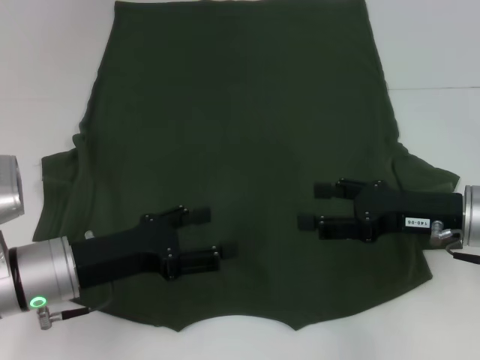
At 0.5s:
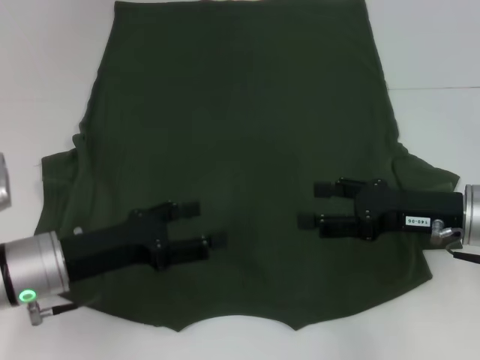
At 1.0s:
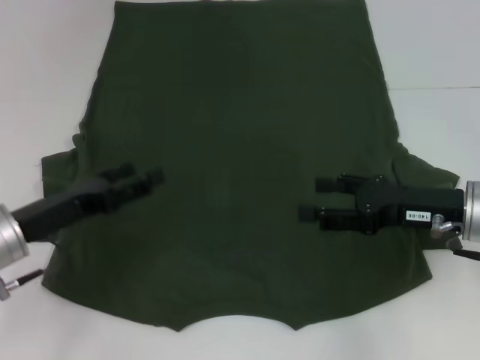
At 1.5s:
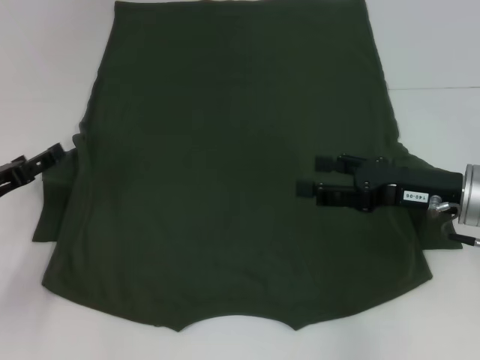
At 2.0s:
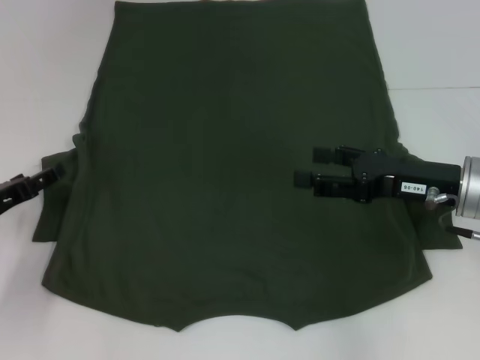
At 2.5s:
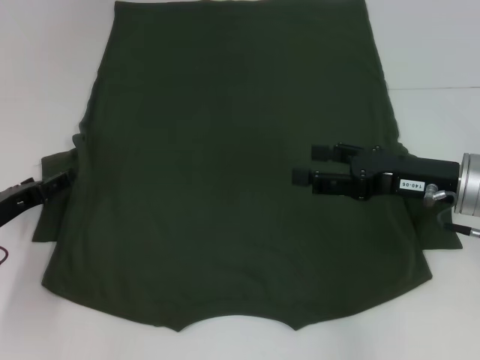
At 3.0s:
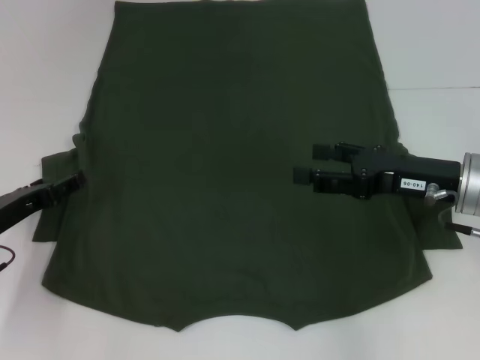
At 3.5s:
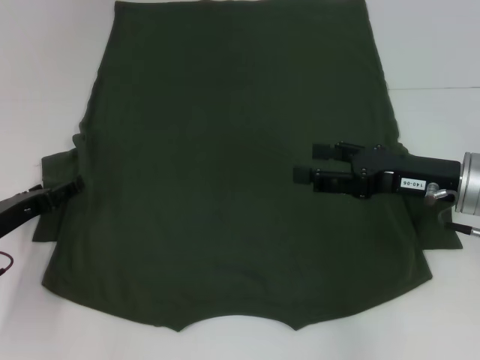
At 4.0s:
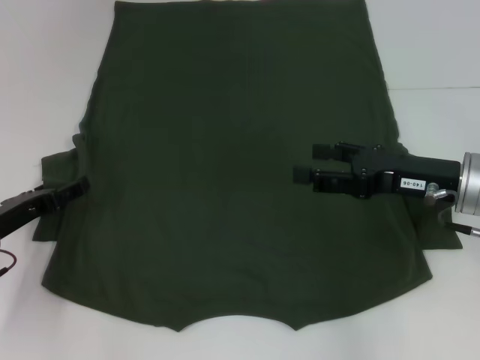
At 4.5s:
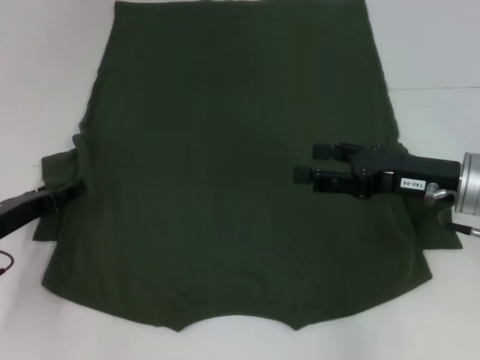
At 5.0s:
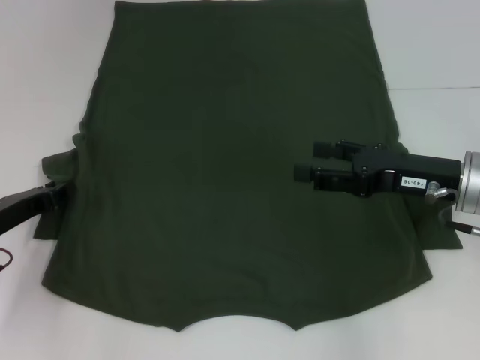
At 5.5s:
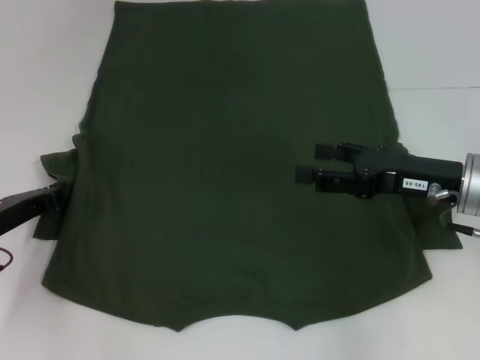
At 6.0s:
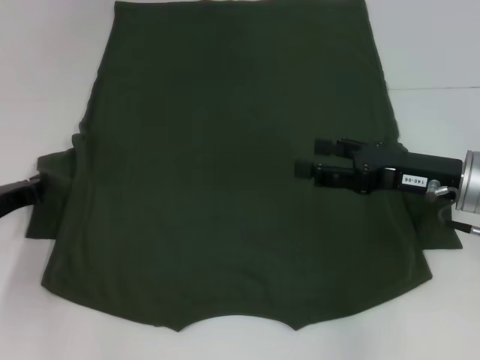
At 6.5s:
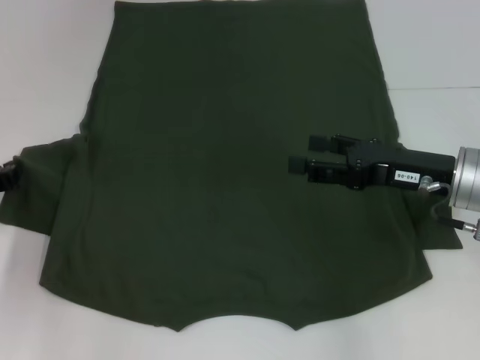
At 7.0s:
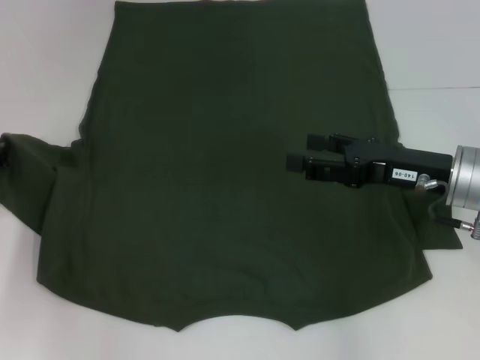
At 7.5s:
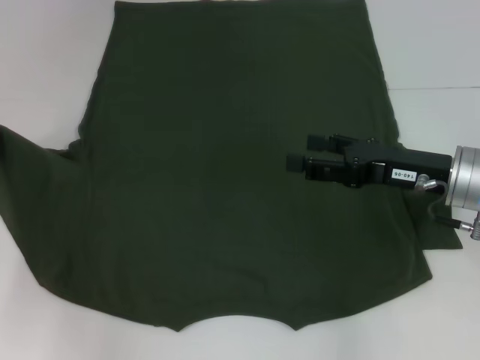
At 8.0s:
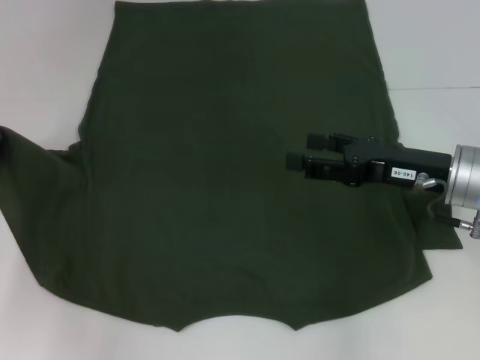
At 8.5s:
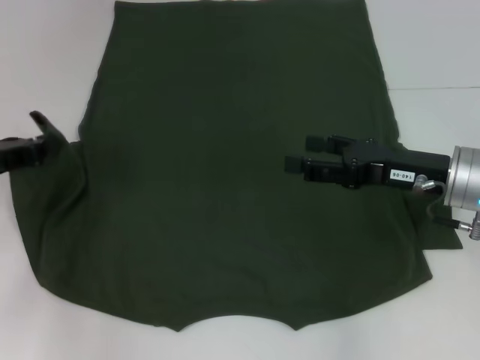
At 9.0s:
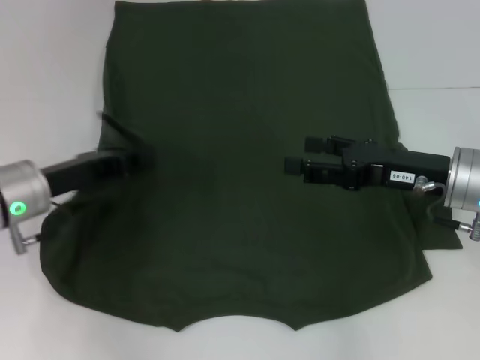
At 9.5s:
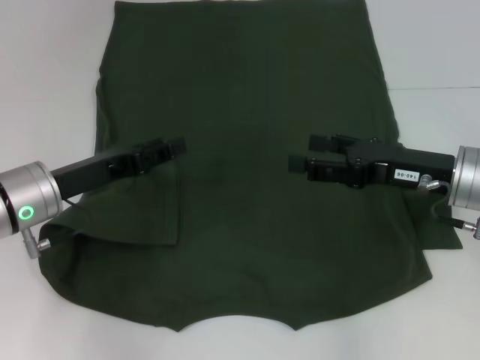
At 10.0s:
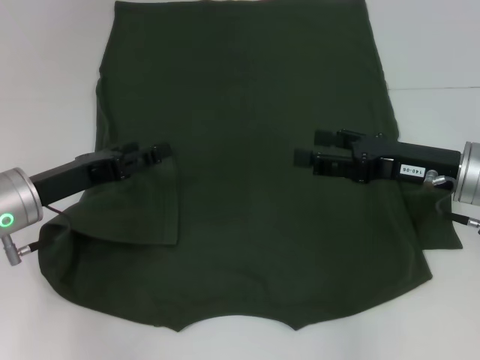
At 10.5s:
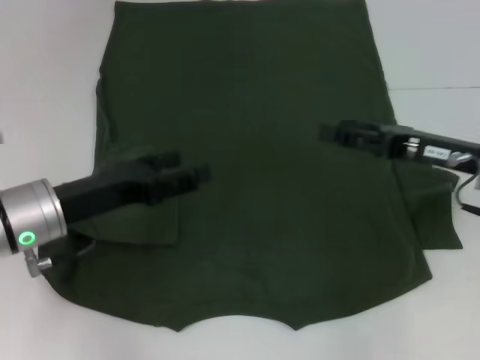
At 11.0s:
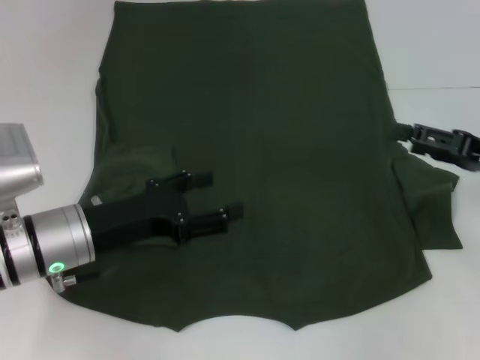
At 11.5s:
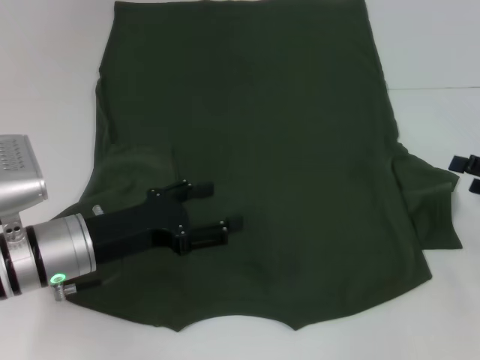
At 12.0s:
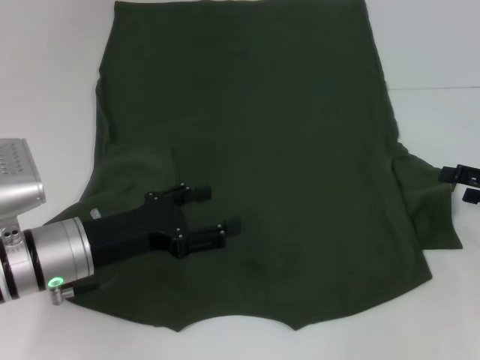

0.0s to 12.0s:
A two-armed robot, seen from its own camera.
Step, 0.0s to 10.0s: Fold the bottom left sleeve with your left hand.
0.0s to 2.0s: The left gripper moves to the left, about 10 cm.
2.0s to 4.0s: There are only small adjustments of the grippers.
4.0s to 6.0s: The left gripper closes.
6.0s to 8.0s: The left gripper shifts by some 5 cm.
8.0s to 10.0s: The left gripper is displaced to the right by approximately 10 cm, and opens its fingers.
10.0s to 12.0s: The left gripper changes place by about 5 cm. The right gripper is displaced to the right by about 15 cm.

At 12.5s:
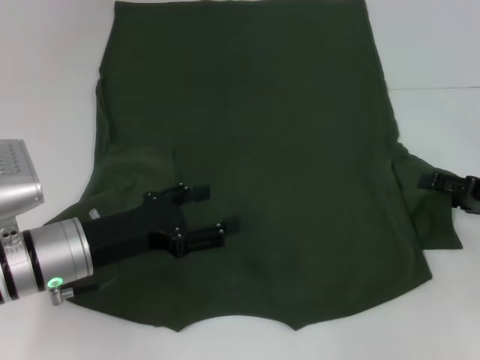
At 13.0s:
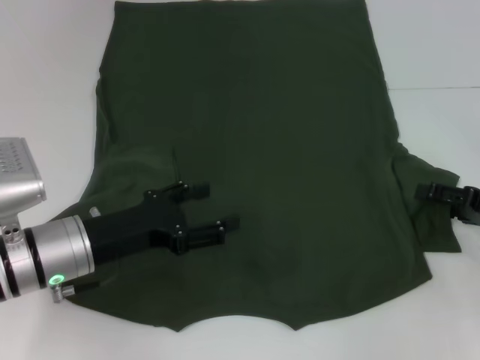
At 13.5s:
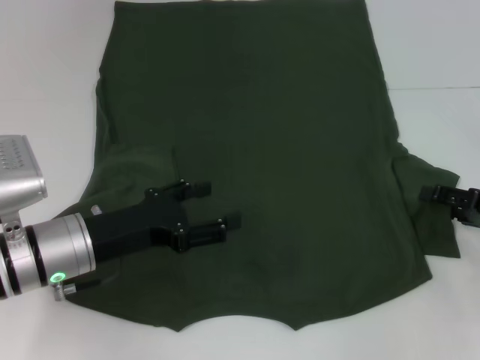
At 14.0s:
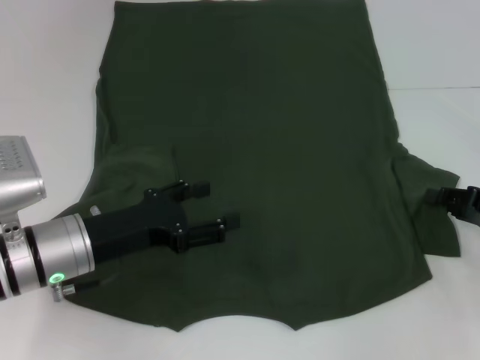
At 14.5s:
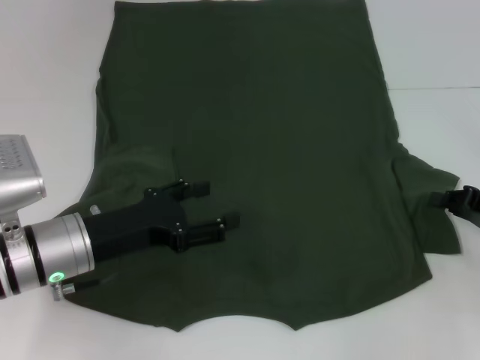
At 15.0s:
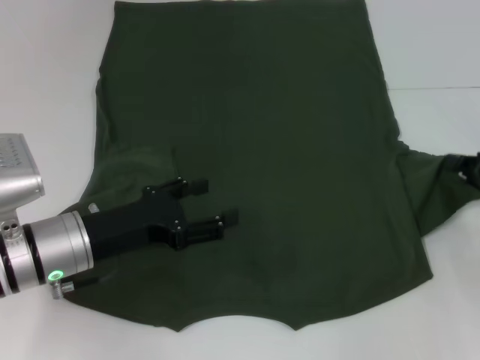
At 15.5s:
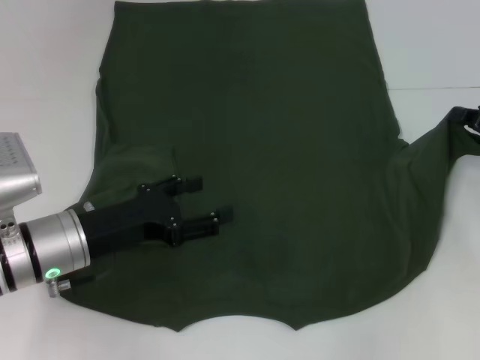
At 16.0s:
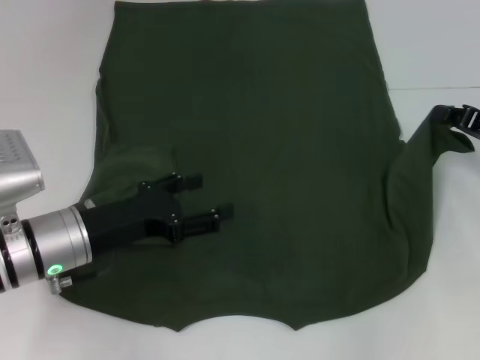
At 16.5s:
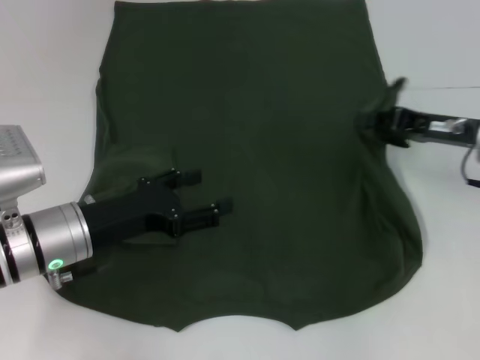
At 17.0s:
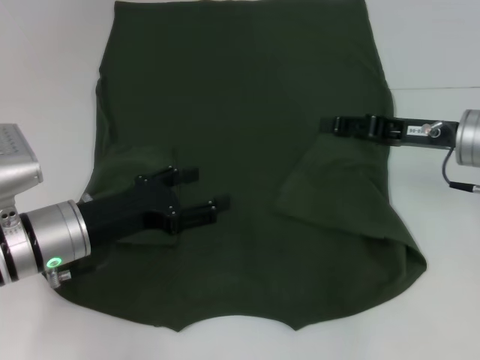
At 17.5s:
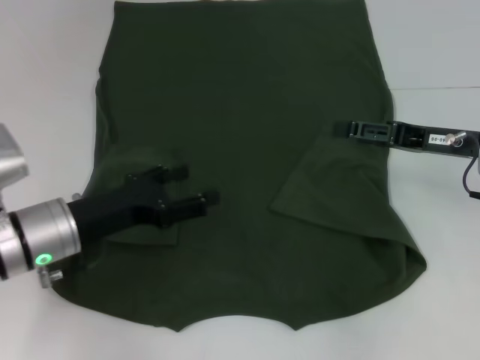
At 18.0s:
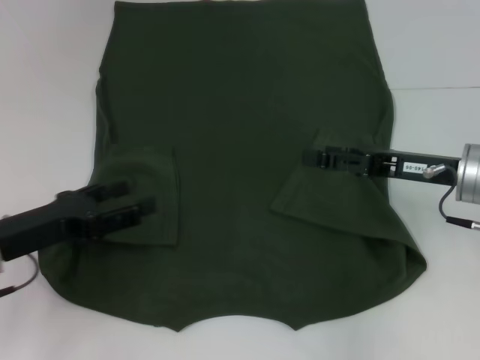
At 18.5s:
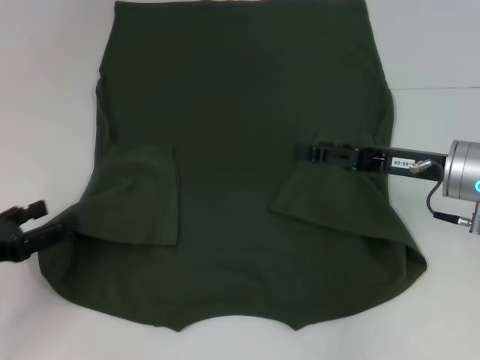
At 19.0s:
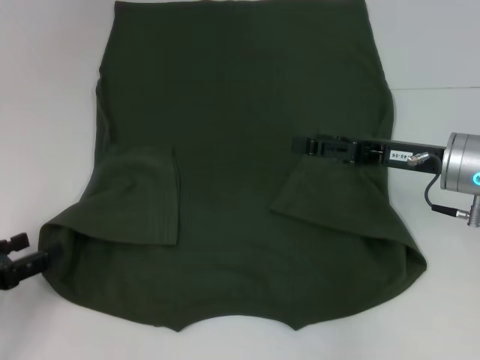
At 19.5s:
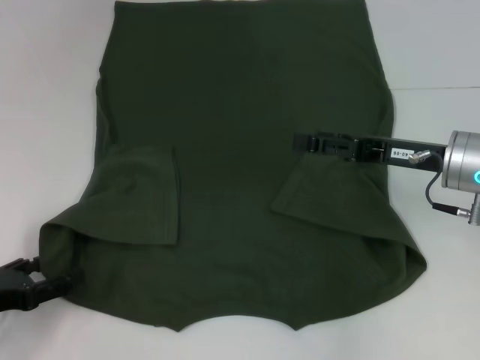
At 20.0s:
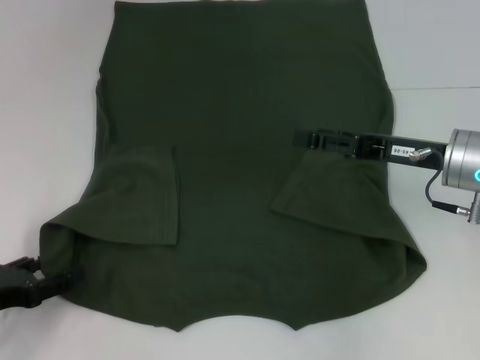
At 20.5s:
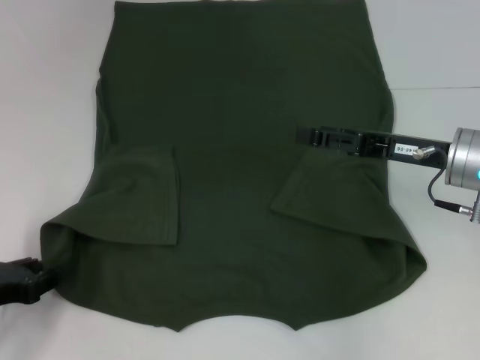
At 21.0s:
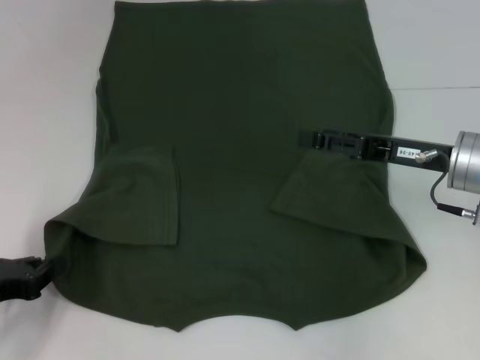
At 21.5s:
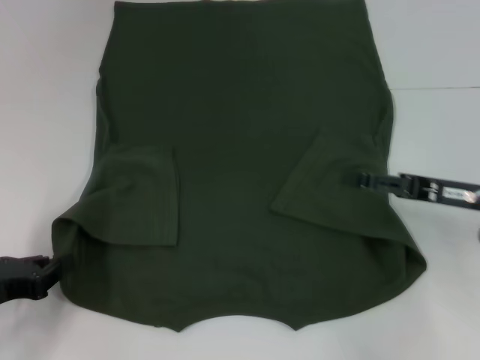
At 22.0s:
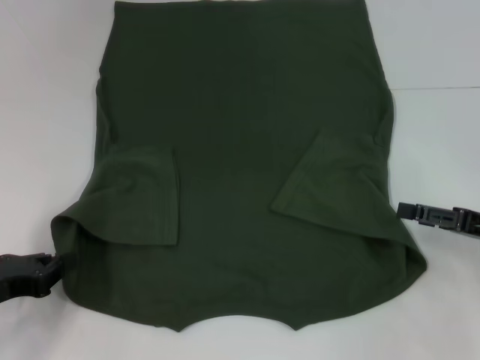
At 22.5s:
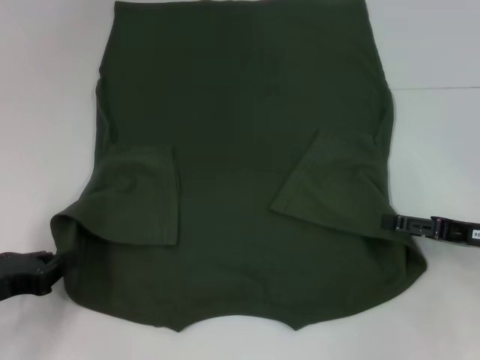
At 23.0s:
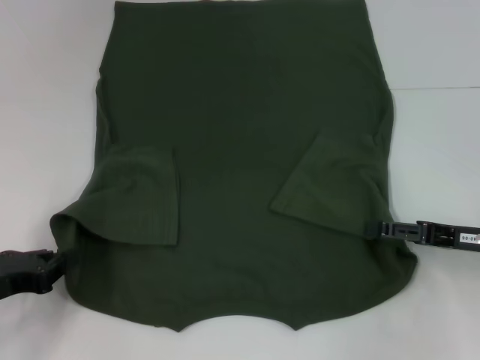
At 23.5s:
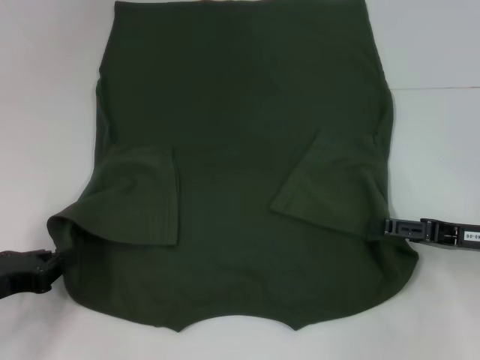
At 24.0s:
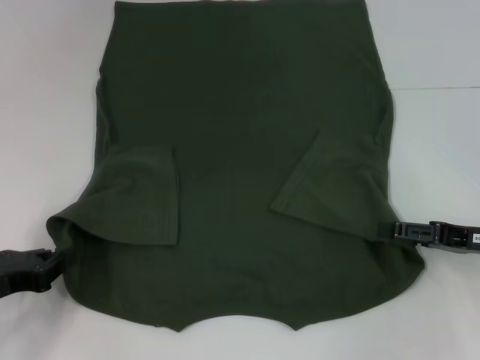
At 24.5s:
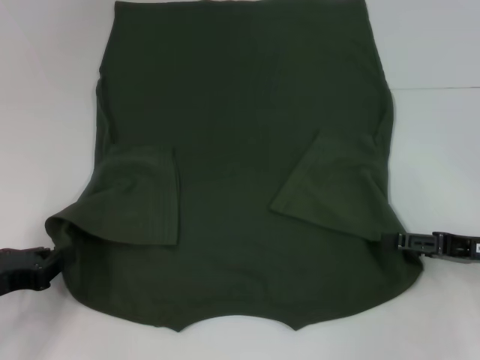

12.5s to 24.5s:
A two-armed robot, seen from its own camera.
Step, 12.5s to 17.0s: Fold the bottom right sleeve with your right hand.
Step, 17.5s to 20.5s: Grab the bottom left corner with your left hand.
12.5s to 14.5s: The right gripper closes its fingers.
14.5s to 16.5s: The right gripper goes about 10 cm to the left, forward and upward.
16.5s to 18.5s: The right gripper opens its fingers. The left gripper moves to the left and backward, about 15 cm.
18.5s to 20.5s: The left gripper closes its fingers.
20.5s to 22.5s: The left gripper closes up, while the right gripper travels to the right, downward and backward by roughly 10 cm.
22.5s to 24.5s: The grippers make only small movements.

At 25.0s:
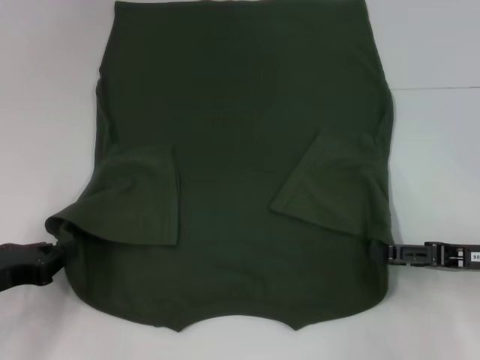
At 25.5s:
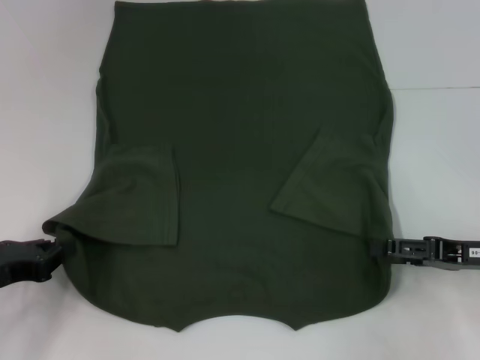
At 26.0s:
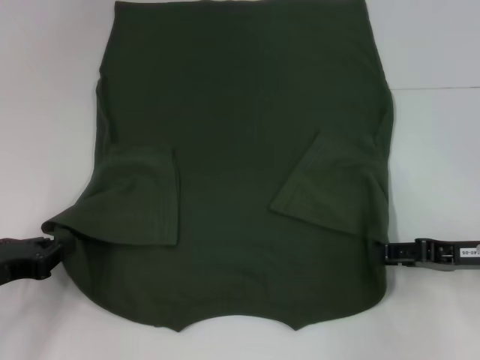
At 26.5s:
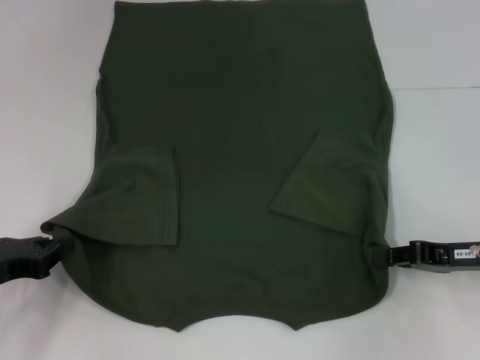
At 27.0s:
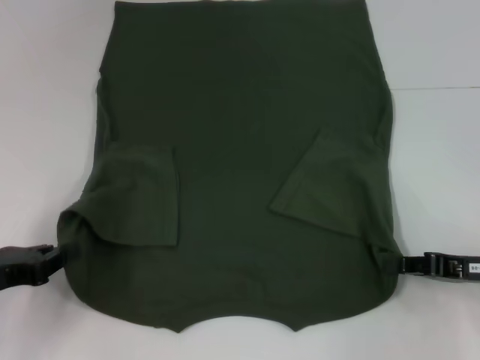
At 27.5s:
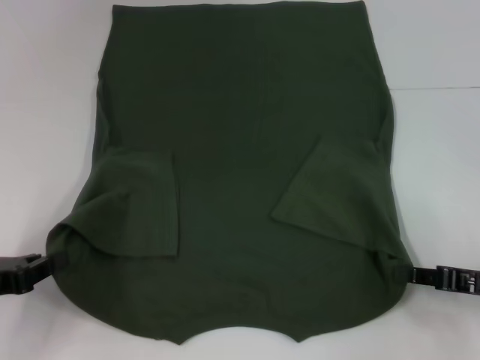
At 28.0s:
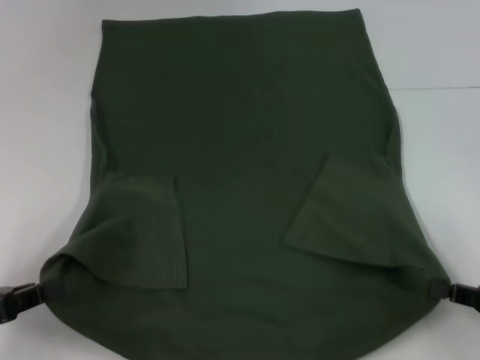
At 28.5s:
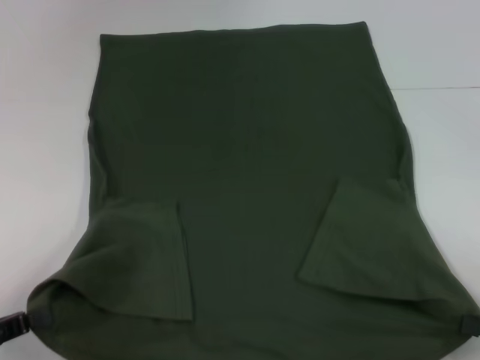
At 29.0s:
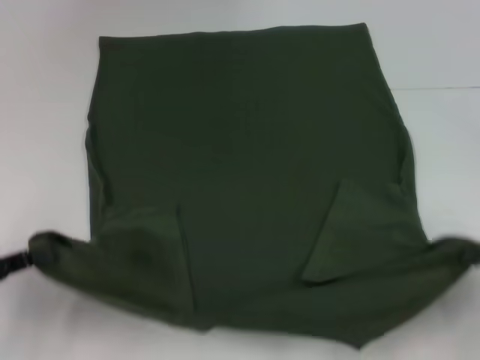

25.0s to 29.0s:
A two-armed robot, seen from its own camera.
Step, 25.0s to 27.0s: Grab the bottom right corner with your right hand.
25.0s to 27.0s: The right gripper closes up.
27.0s to 29.0s: The right gripper shifts some 10 cm backward and to the right.
